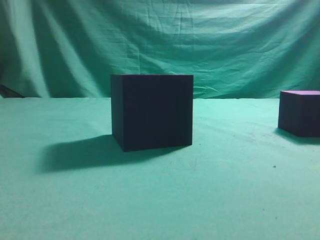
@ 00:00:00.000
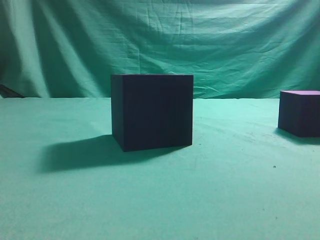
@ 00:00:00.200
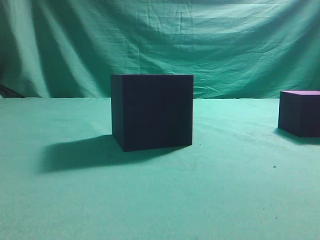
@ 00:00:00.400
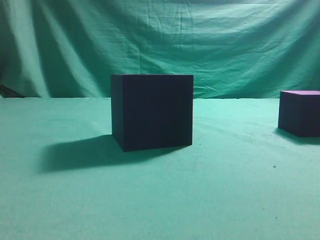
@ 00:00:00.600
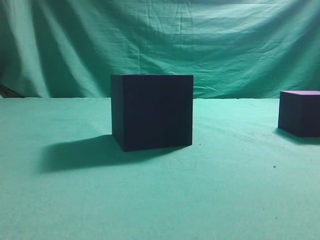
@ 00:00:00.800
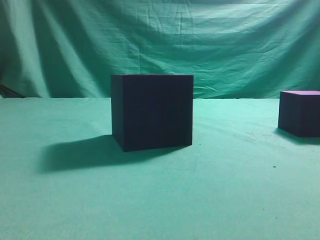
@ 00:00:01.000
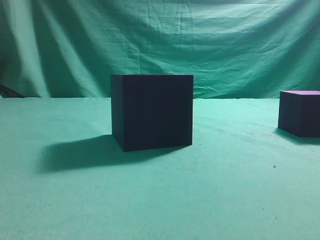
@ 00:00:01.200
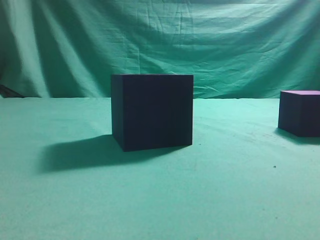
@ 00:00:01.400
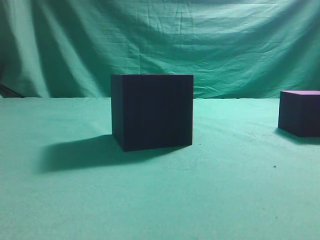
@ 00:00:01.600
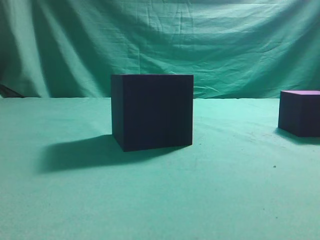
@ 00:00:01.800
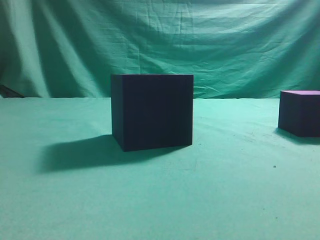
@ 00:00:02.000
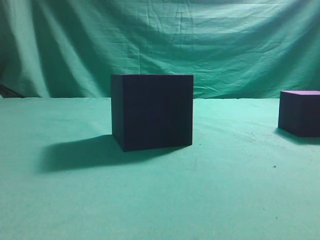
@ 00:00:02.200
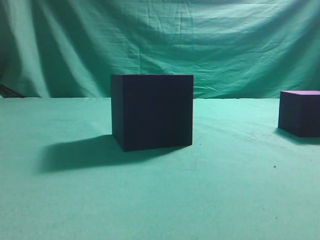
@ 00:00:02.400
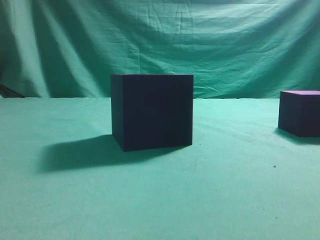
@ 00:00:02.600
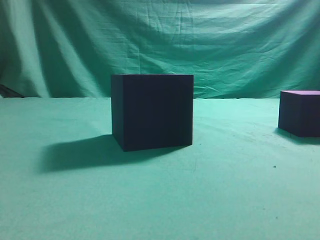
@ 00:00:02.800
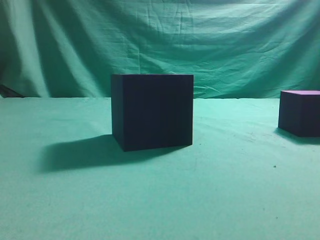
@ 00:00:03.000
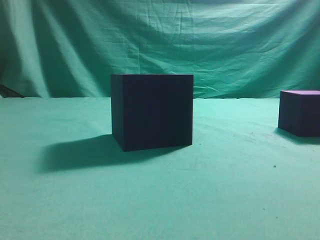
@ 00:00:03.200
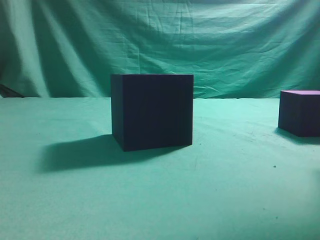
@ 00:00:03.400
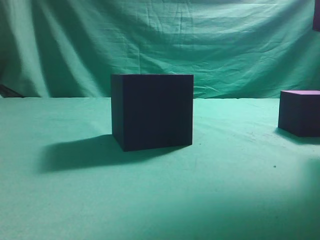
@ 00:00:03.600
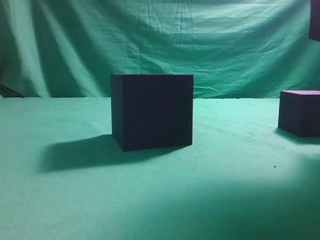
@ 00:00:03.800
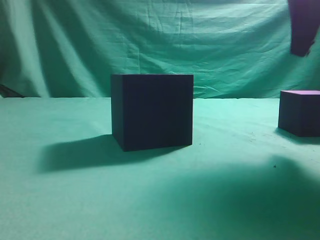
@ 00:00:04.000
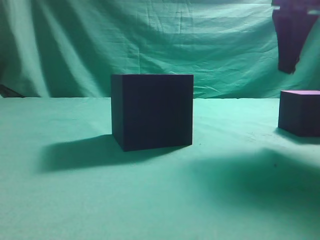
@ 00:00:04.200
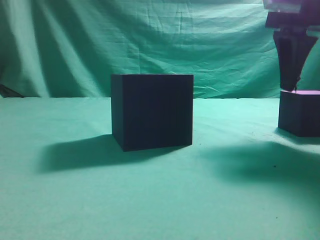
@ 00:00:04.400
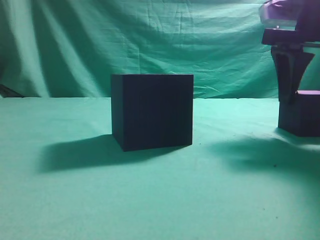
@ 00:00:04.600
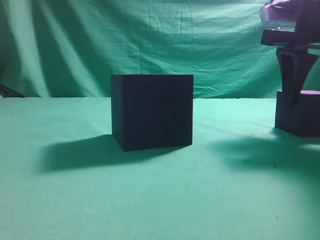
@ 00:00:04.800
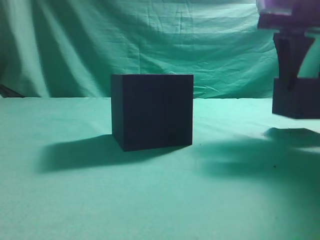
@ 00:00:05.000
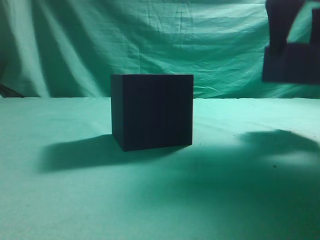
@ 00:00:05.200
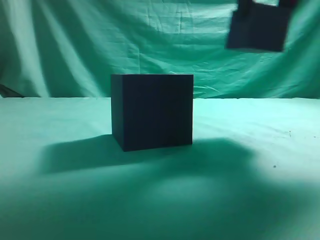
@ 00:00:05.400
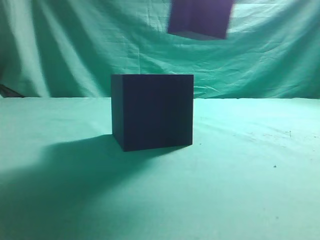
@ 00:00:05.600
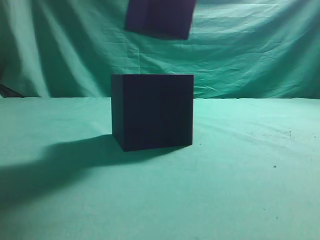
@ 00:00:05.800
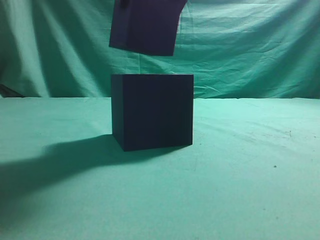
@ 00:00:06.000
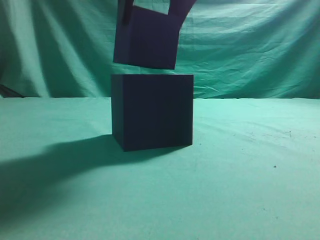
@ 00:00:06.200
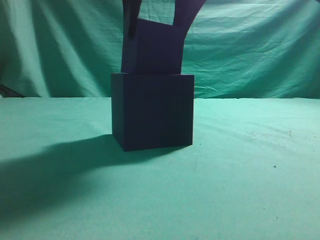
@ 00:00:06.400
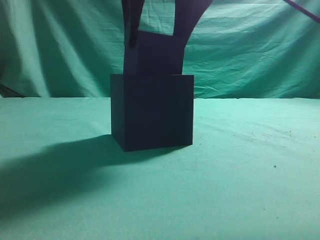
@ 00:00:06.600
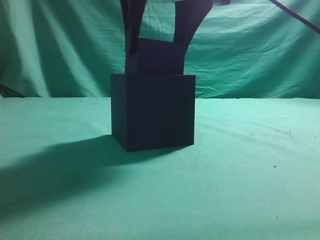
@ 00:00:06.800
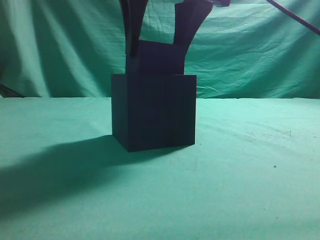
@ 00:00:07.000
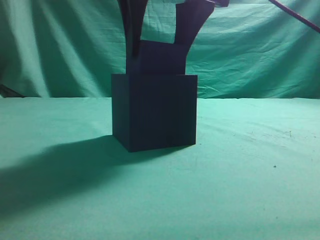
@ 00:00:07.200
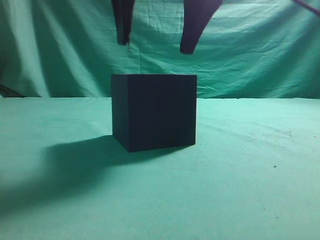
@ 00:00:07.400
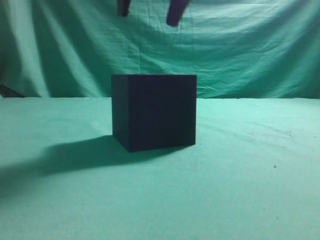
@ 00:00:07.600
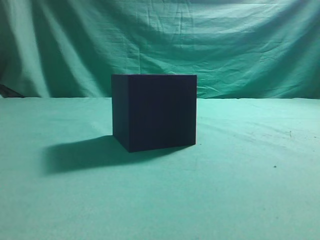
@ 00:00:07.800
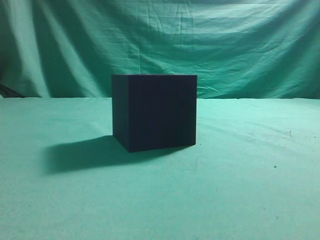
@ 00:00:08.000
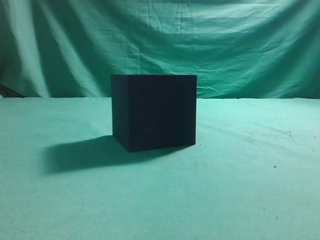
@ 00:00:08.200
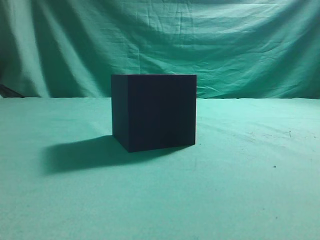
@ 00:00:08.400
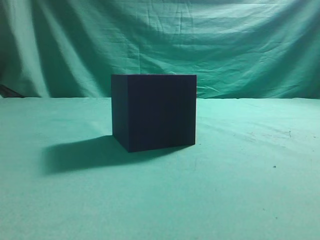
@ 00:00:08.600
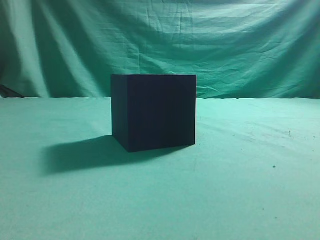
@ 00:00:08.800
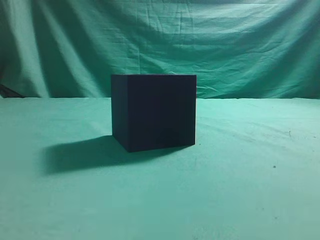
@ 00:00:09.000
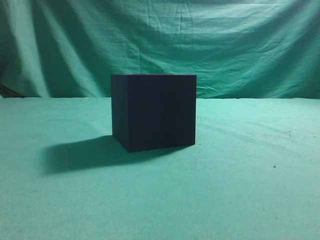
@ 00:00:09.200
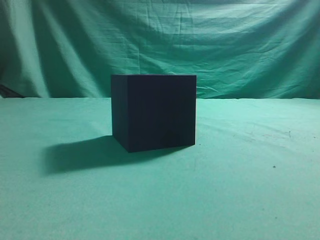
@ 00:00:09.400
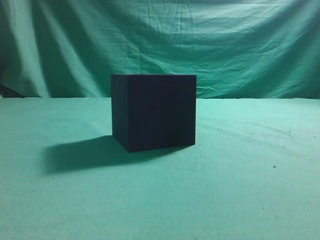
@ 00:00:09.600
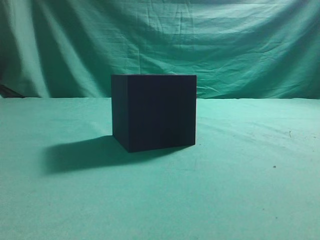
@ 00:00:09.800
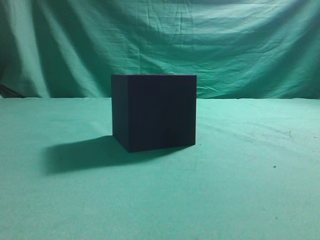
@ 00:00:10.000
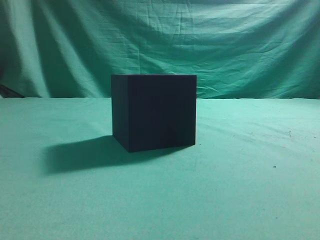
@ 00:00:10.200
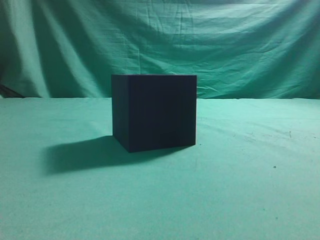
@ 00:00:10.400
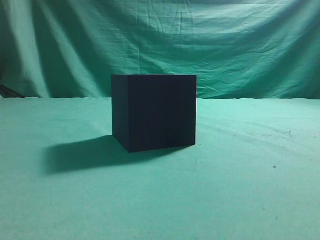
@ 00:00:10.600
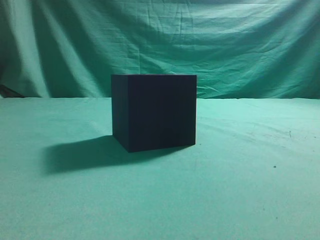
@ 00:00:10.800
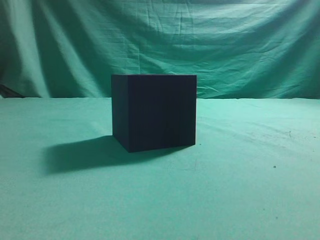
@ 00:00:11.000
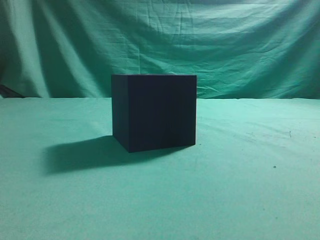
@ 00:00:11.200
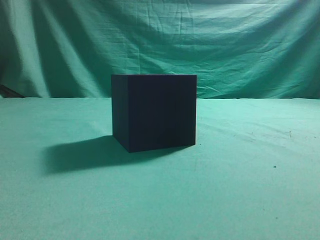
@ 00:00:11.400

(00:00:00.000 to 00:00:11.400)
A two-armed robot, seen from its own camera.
Task of the whole recording: pick up the cube block and place it into the cube groove.
Step, 00:00:00.000 - 00:00:05.200: Grasp the cube.
Step, 00:00:05.400 - 00:00:07.400: Place cube into the cube-shaped recess.
00:00:02.800 - 00:00:04.200: The right gripper shifts some 15 cm forward, and opens up.
00:00:04.200 - 00:00:05.600: The right gripper travels to the left and upward by about 15 cm.
00:00:05.600 - 00:00:07.200: The right gripper is displaced to the left and downward by about 10 cm.
00:00:07.200 - 00:00:08.600: The right gripper goes roughly 25 cm backward, to the right and upward, and closes up.
